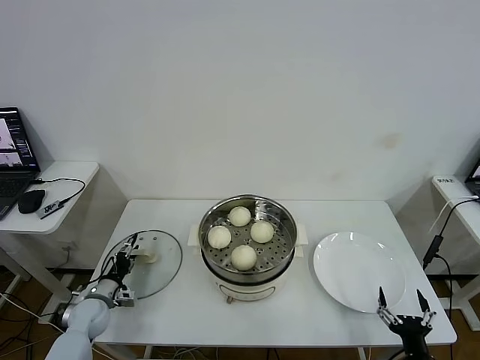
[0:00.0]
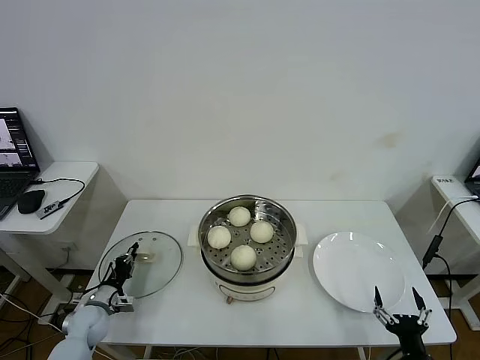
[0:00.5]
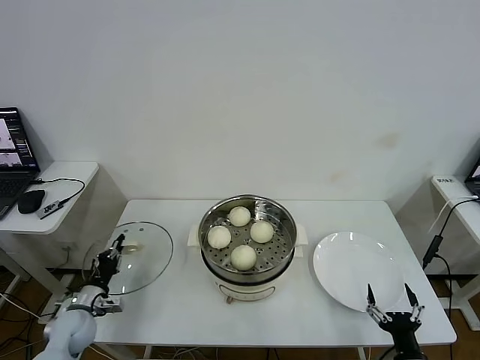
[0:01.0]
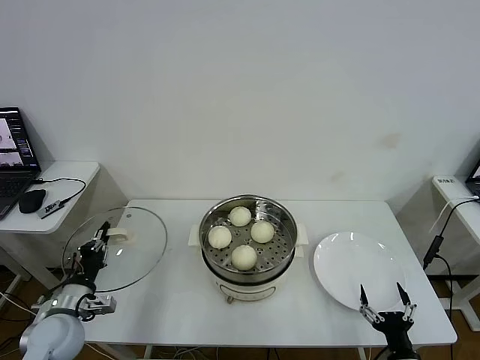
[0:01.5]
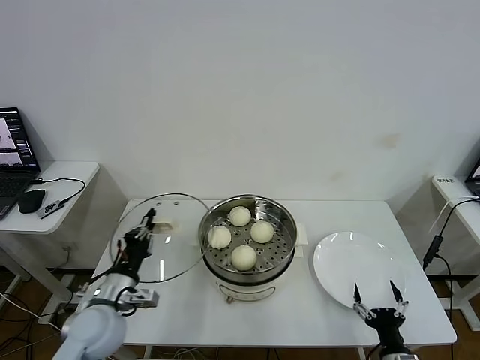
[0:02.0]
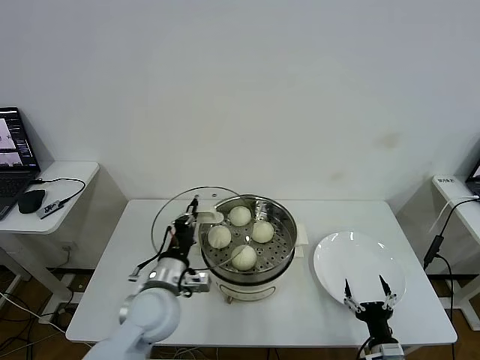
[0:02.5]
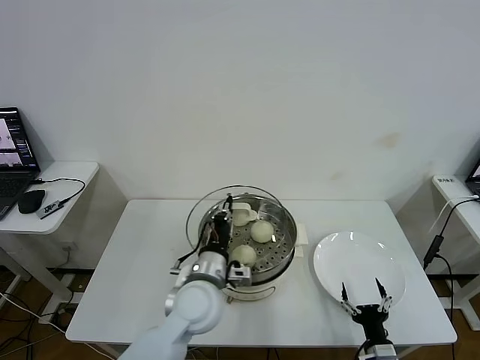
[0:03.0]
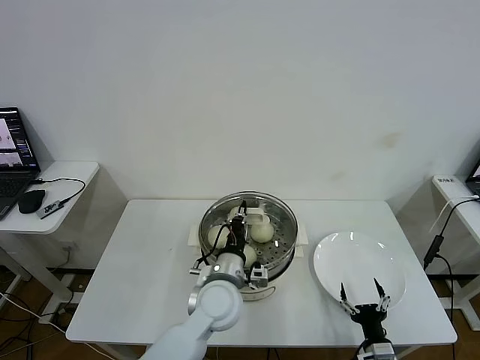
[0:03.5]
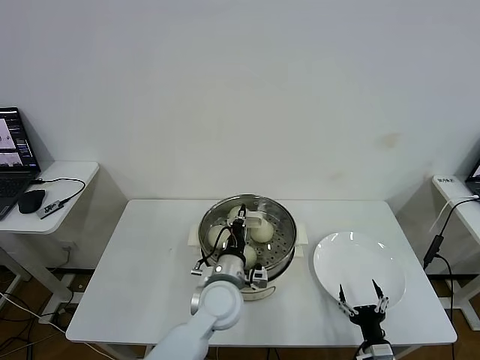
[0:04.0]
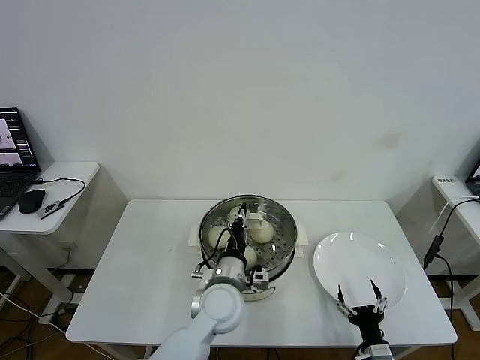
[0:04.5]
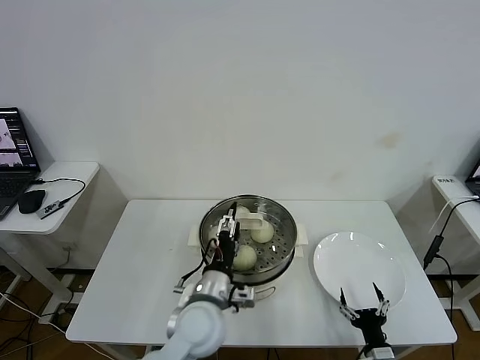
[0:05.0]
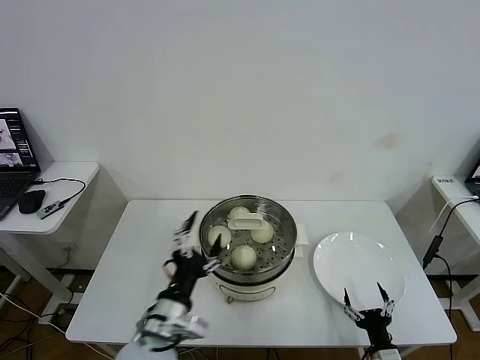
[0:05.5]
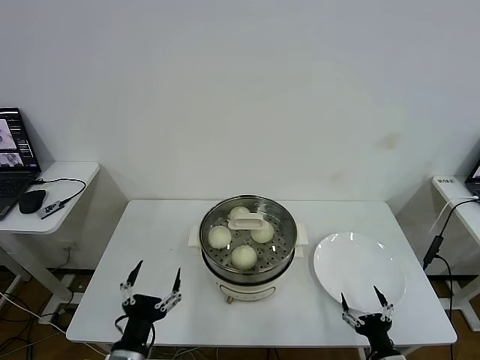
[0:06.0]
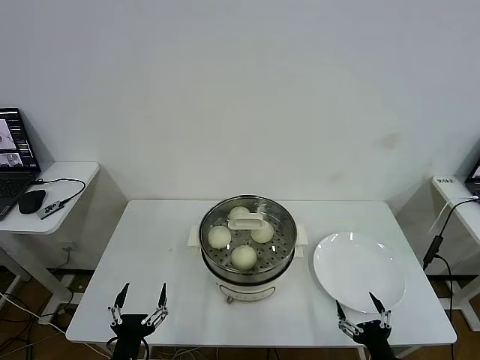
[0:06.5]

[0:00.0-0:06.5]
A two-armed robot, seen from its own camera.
Task of the whole recording: take steamed baozi put them in steamer then cover it.
Step, 0:01.0 to 0:04.5: Place the pot lid on the steamer with left gripper.
0:00.0 to 0:02.0: The left gripper is displaced upward, to the right and backward by approximately 20 cm, and closes up.
0:02.0 to 0:04.5: The left gripper is displaced to the right by approximately 25 cm; the right gripper changes place by approximately 5 cm.
0:04.5 to 0:06.5: The left gripper moves backward and to the left, some 30 cm, and opens up. Meanwhile the right gripper heads upward and backward, covering roughly 10 cm.
